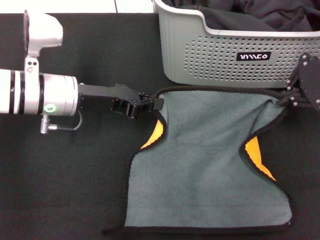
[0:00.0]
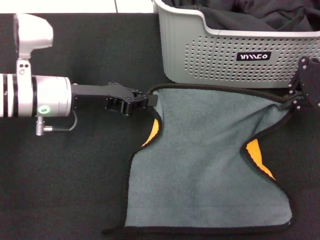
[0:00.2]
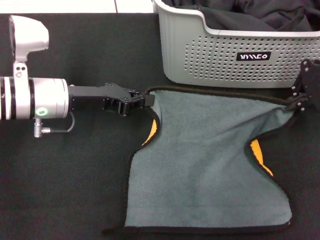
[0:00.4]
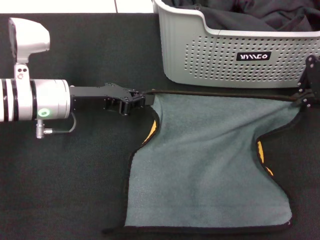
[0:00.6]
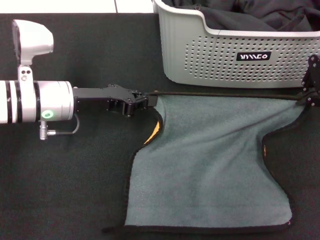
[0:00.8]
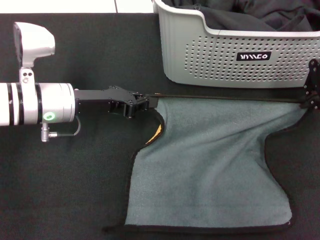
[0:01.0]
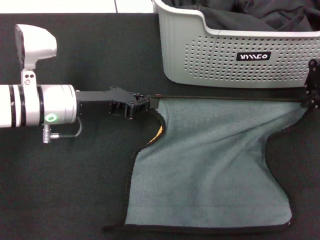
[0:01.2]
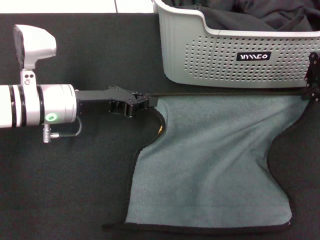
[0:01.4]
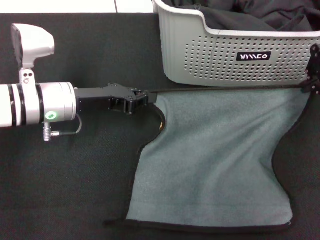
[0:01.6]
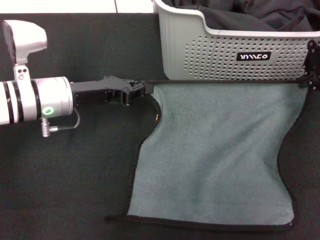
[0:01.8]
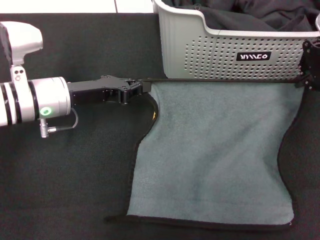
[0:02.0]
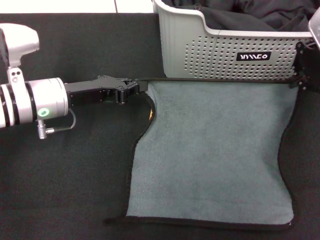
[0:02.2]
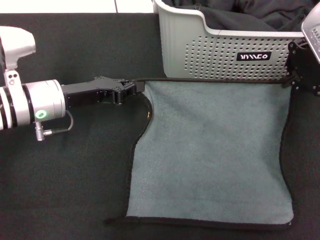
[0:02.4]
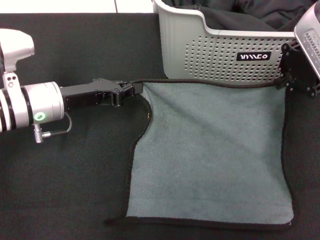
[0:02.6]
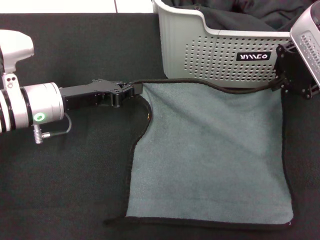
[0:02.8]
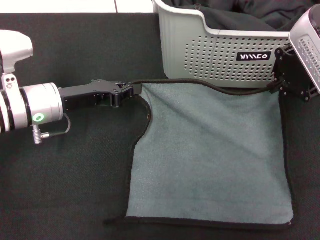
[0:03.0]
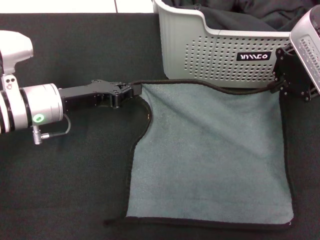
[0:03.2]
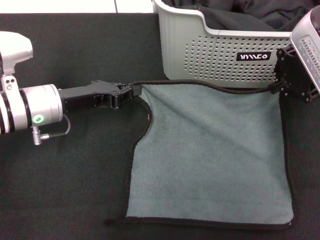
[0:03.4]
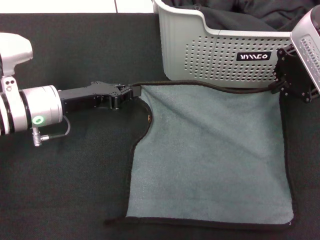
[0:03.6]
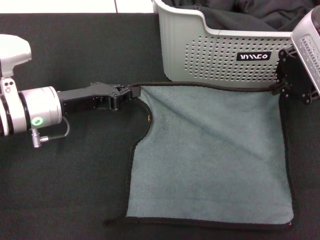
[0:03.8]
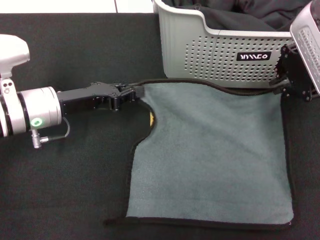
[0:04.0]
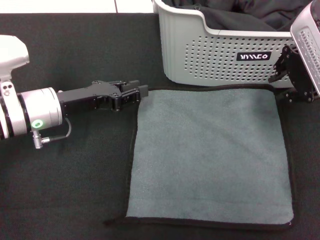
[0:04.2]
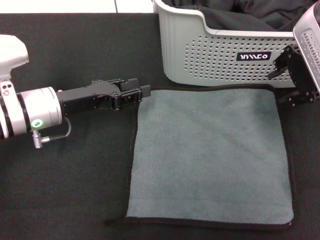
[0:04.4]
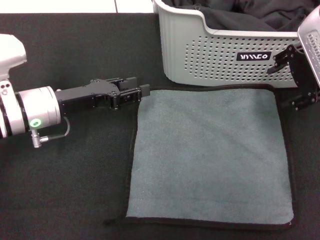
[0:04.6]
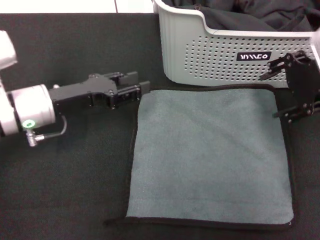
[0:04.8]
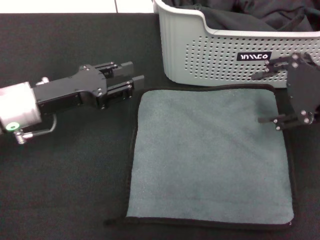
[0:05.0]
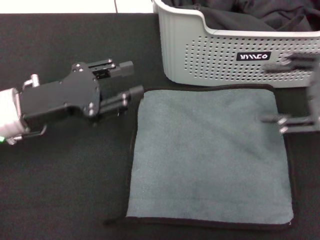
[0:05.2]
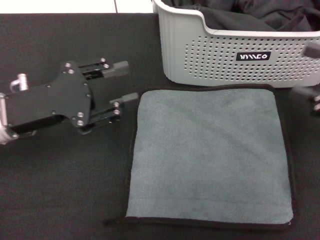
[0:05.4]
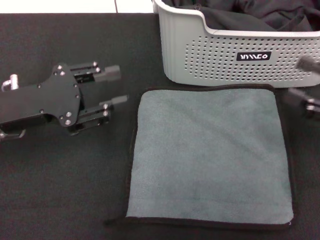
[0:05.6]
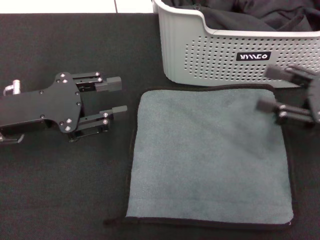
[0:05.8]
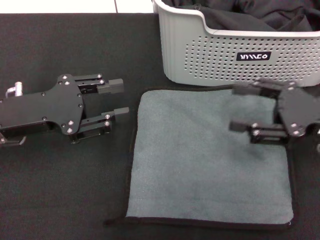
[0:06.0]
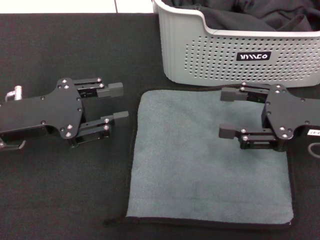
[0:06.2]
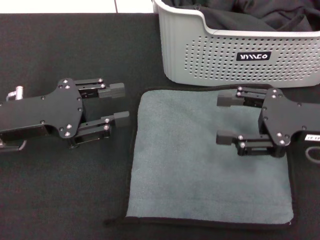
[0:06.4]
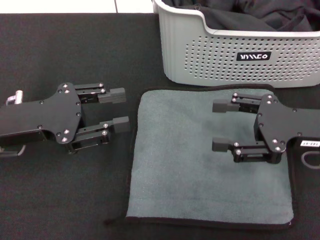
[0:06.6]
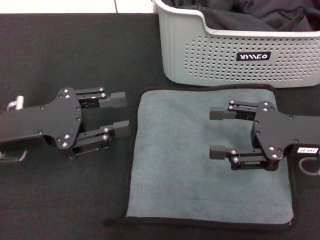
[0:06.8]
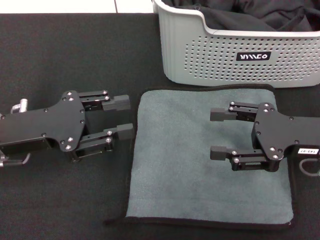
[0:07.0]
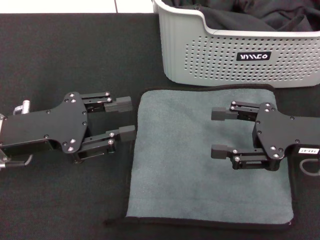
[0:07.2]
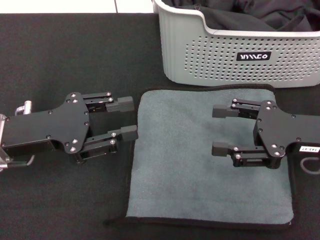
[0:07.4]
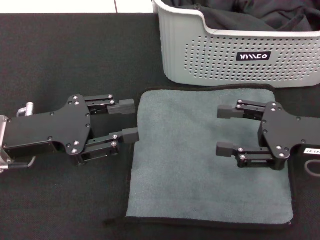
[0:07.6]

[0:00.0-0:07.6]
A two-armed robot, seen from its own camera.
Task of the whole recording: pick up the towel from the storage box and lay it flat on the black tablecloth.
Step, 0:00.0 to 0:04.2: Spread the towel flat with the right gripper.
0:03.0 to 0:04.6: The right gripper opens up. The left gripper opens up.
0:04.6 to 0:06.0: The right gripper heads downward, to the right and backward, covering approximately 15 cm, and opens up; the left gripper heads backward, covering some 5 cm.
0:06.0 to 0:07.6: There are only small adjustments of the grippers.

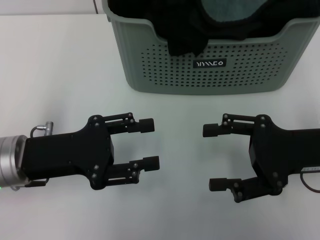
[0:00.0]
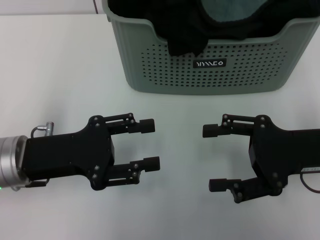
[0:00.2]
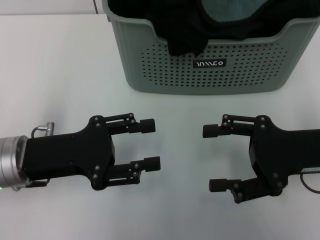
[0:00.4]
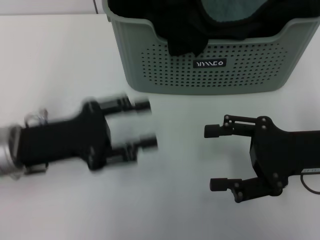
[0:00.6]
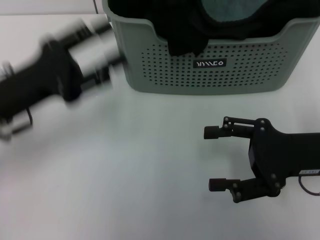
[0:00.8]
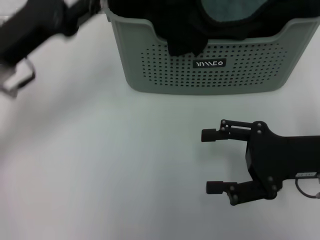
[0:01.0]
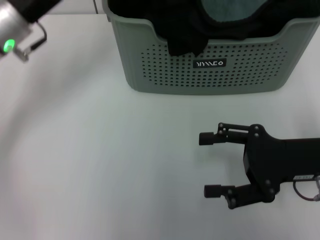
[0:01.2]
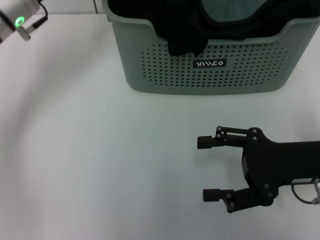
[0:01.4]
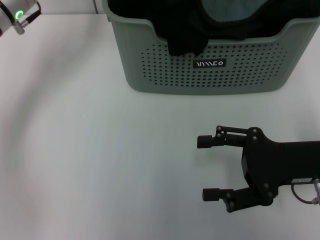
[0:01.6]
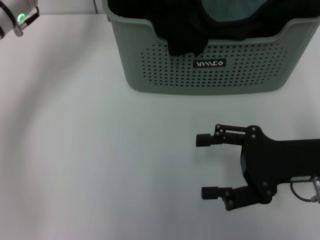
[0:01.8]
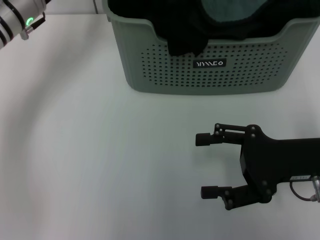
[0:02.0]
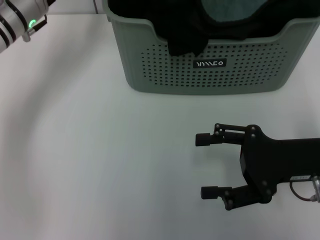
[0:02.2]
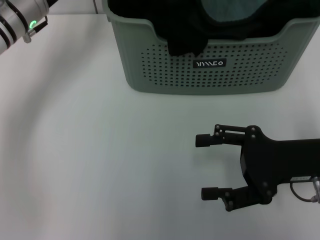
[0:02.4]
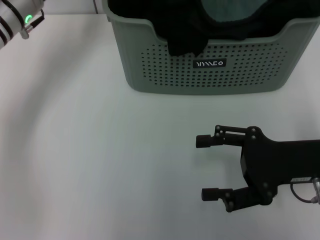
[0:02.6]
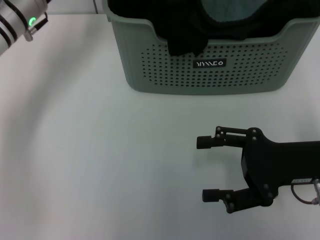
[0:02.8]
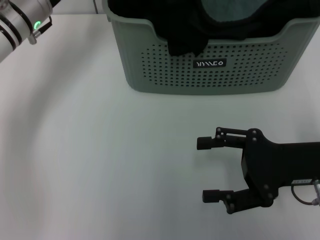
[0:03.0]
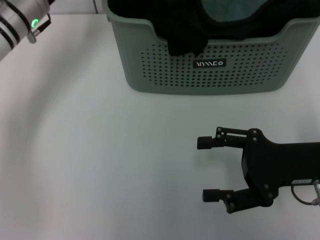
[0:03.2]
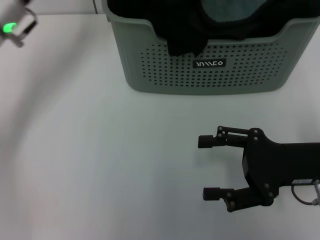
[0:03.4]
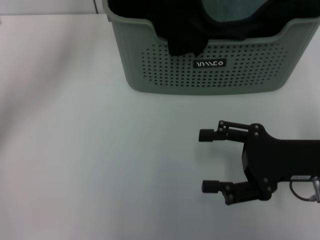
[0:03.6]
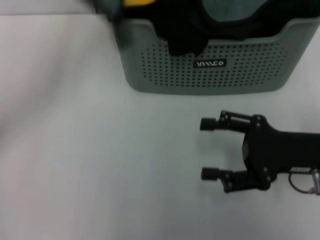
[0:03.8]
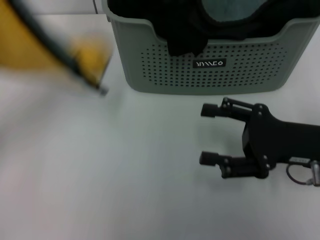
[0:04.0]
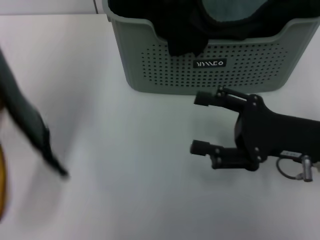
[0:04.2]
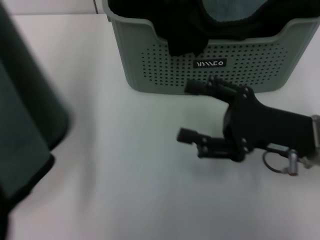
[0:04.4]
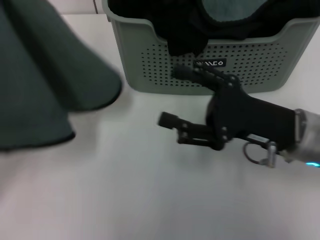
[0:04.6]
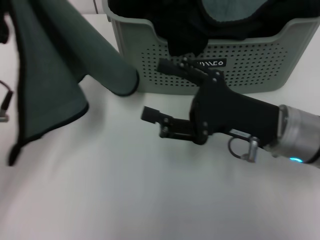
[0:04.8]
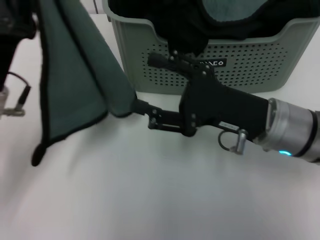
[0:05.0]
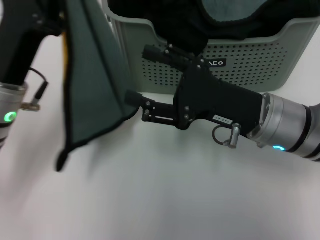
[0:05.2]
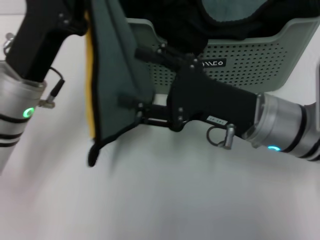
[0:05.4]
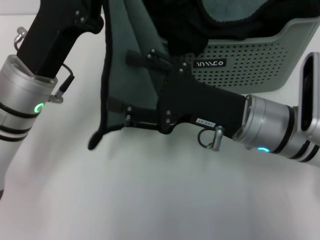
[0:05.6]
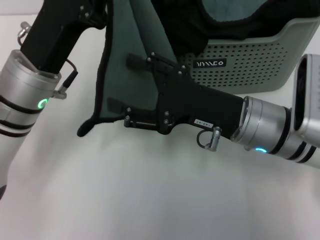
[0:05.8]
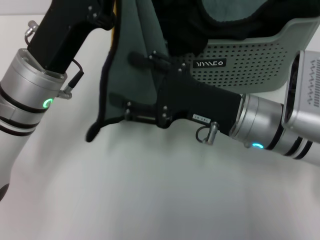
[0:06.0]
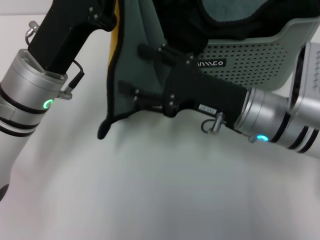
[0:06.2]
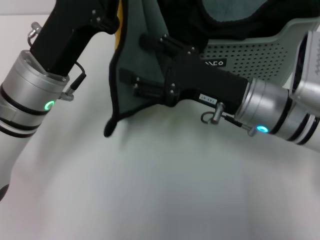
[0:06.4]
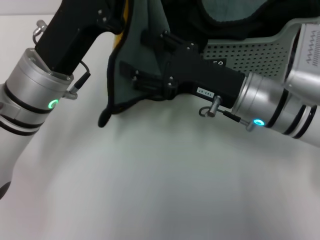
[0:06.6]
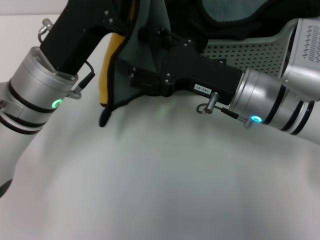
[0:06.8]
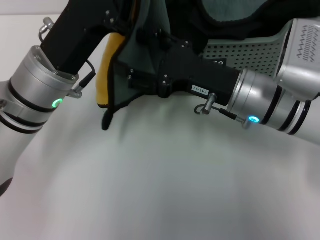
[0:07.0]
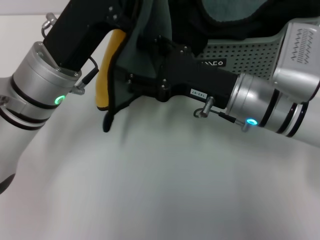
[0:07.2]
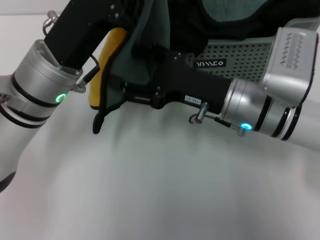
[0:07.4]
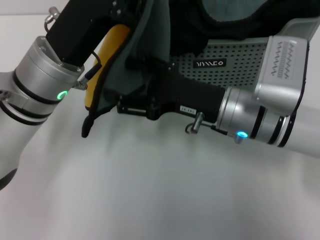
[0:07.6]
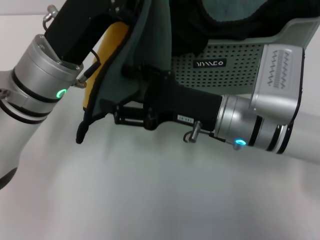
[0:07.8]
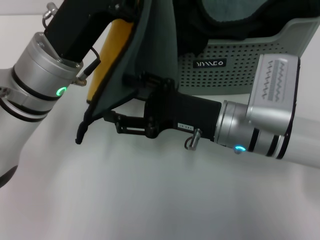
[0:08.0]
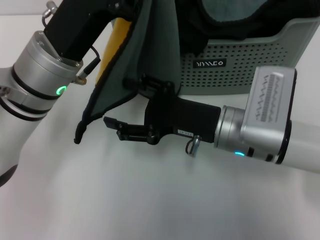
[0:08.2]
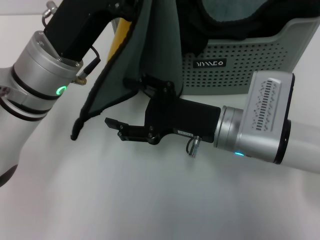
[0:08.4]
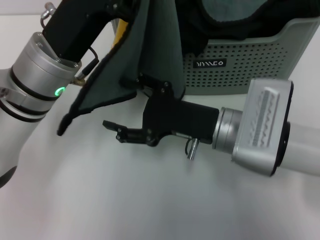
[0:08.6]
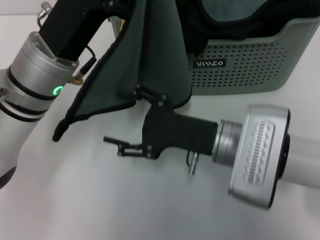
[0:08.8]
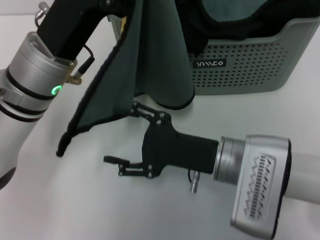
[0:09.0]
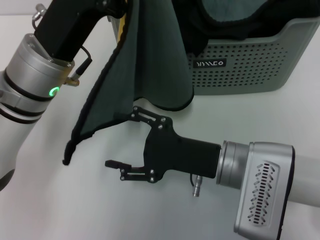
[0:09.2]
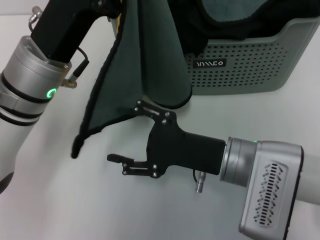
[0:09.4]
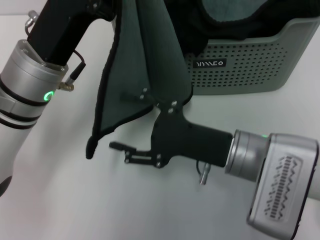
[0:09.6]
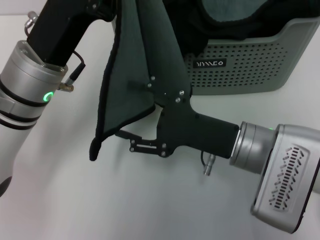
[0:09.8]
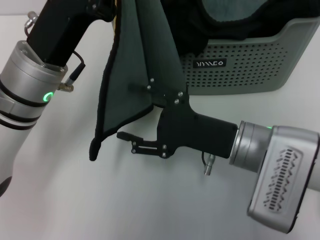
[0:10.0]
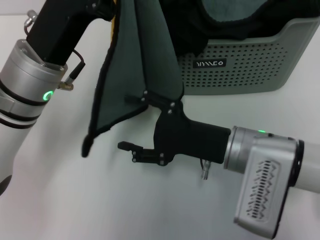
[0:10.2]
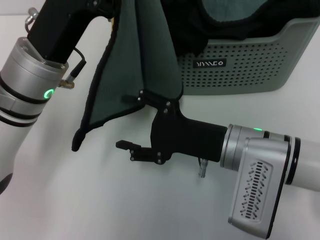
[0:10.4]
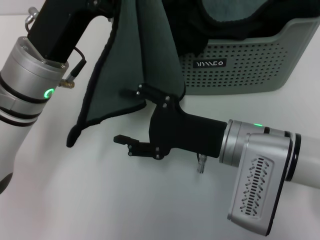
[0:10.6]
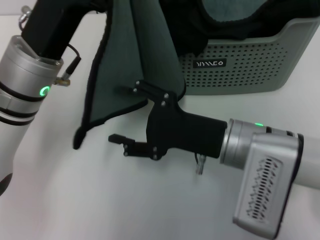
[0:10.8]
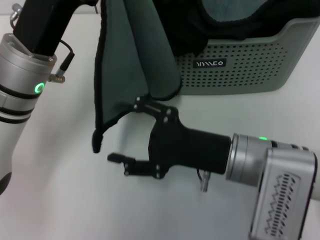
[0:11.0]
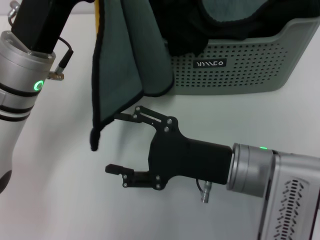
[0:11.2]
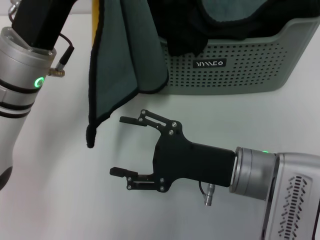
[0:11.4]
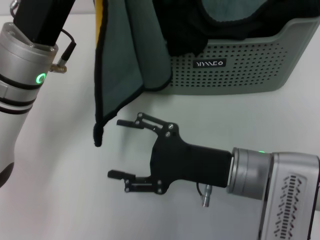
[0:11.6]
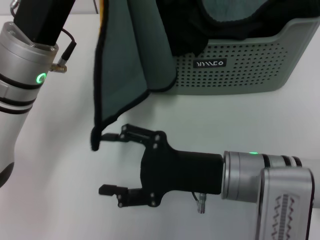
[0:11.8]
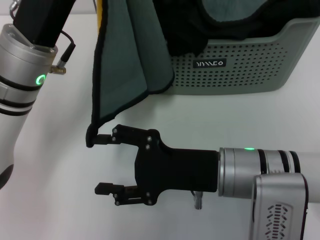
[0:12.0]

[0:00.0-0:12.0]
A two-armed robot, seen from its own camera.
Task of the whole recording: pick up the towel from the storage box and lay it flat on the table.
Step, 0:00.0 to 0:03.6: Pick up a towel with the left gripper.
0:00.0 to 0:01.6: The left gripper travels forward by about 15 cm.
0:01.6 to 0:03.0: The left gripper closes up.
0:03.0 to 0:04.4: The left gripper goes about 20 cm backward and to the left.
0:04.4 to 0:06.0: The right gripper travels to the left by about 10 cm, while the left gripper shifts roughly 10 cm to the right.
0:07.6 to 0:09.0: The right gripper ends up approximately 5 cm from where it was.

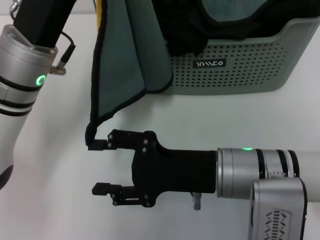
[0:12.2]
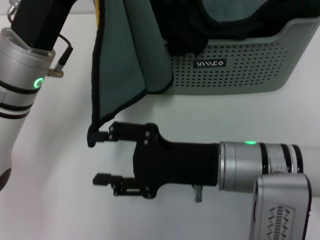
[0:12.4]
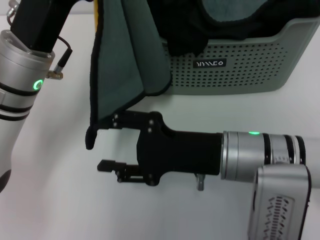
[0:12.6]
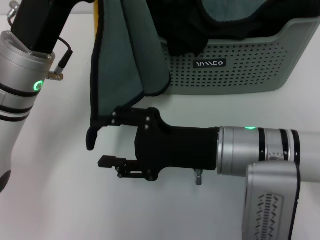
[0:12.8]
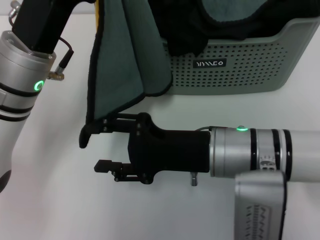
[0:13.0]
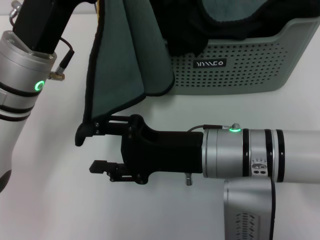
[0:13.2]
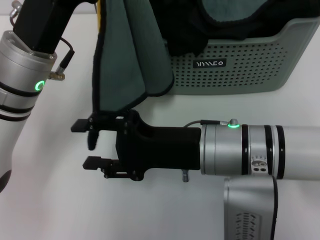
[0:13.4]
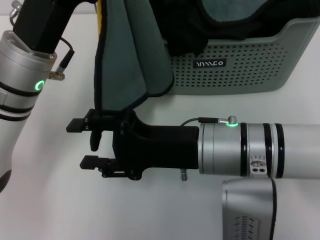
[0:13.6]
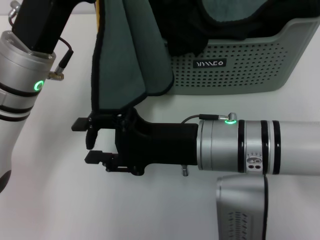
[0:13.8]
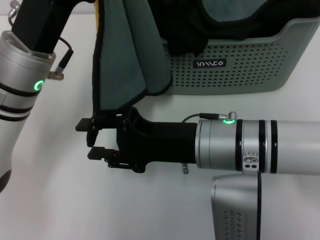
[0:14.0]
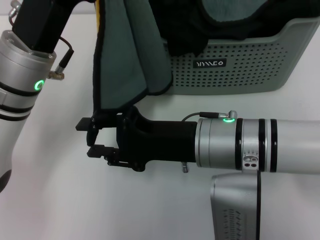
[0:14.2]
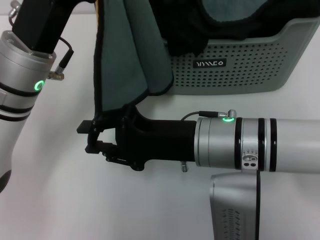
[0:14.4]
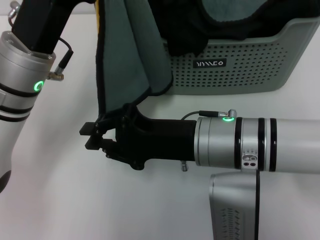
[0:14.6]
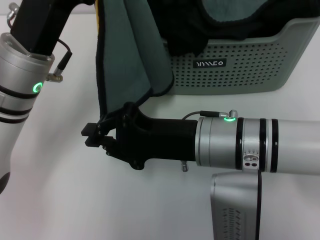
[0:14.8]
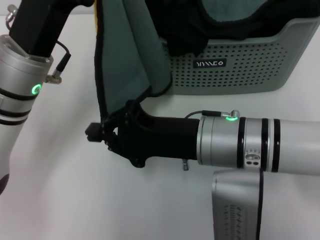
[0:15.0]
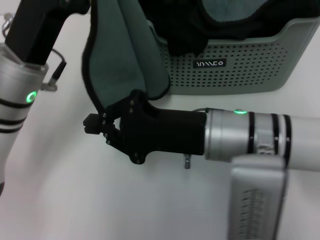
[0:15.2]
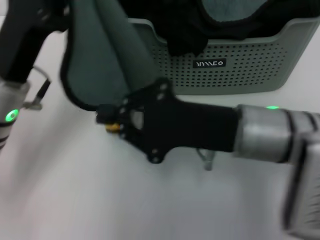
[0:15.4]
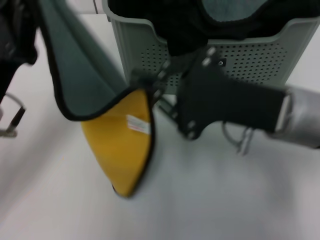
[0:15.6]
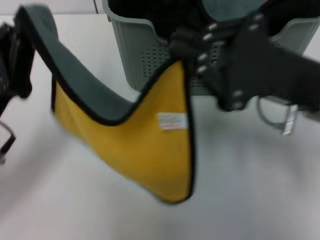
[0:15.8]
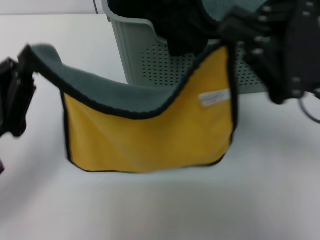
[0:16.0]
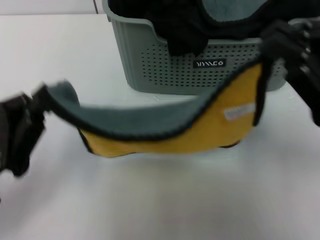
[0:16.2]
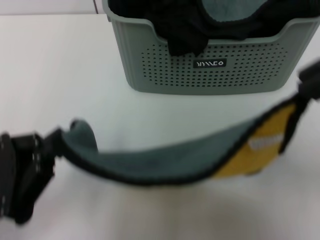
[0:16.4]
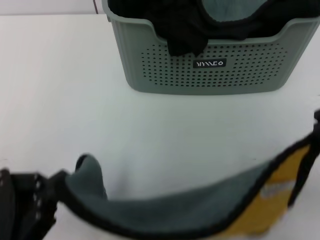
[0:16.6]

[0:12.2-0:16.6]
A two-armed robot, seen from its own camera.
Task of the whole recording: pick up the towel from the storage box and lay it flat on the table.
Step, 0:12.2 to 0:15.0: Spread the towel flat with the left gripper.
0:13.6 to 0:15.2: The right gripper closes.
0:15.2 to 0:16.6: The left gripper travels backward and to the left by some 20 cm. Meanwhile the right gripper is displaced to the right and backward by approximately 20 cm.
